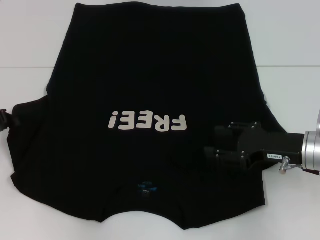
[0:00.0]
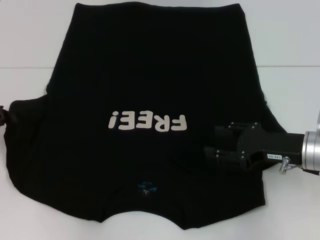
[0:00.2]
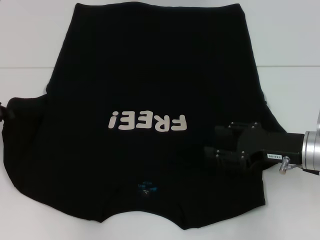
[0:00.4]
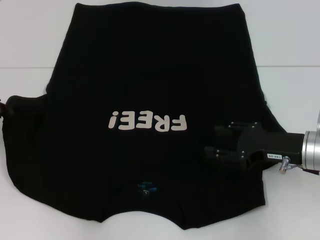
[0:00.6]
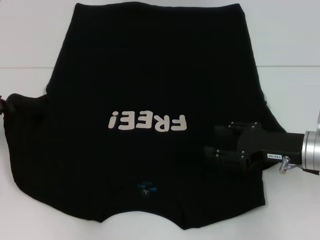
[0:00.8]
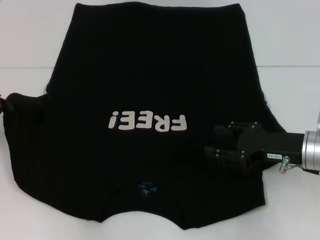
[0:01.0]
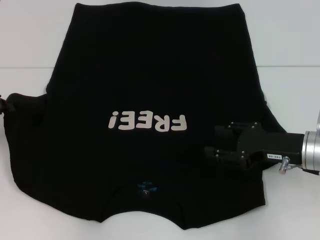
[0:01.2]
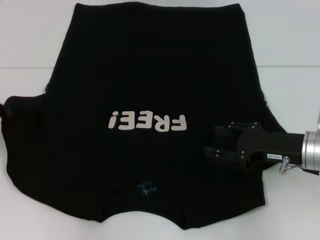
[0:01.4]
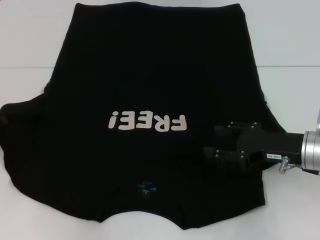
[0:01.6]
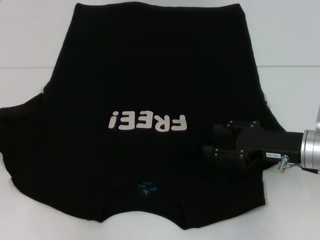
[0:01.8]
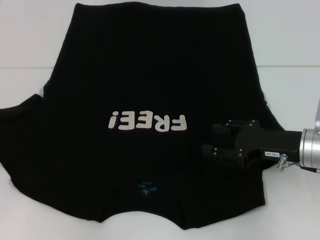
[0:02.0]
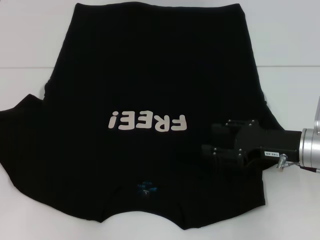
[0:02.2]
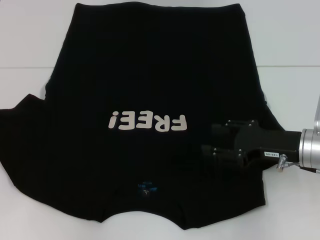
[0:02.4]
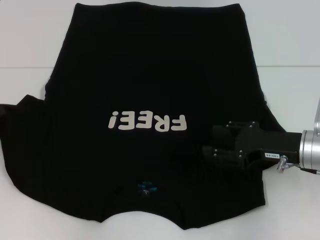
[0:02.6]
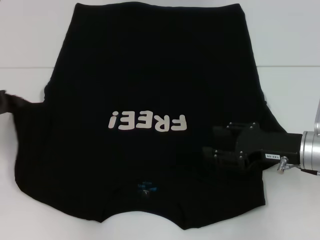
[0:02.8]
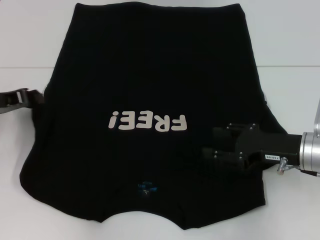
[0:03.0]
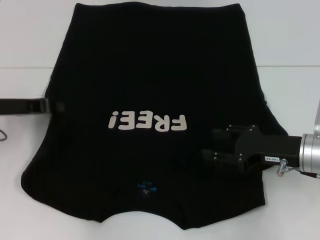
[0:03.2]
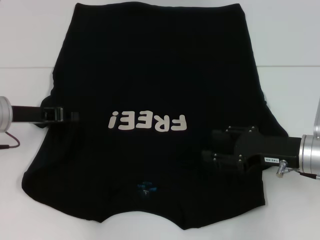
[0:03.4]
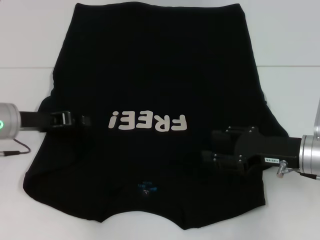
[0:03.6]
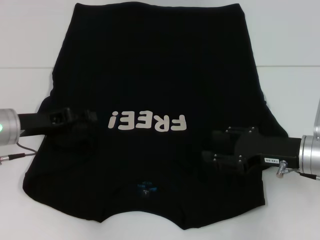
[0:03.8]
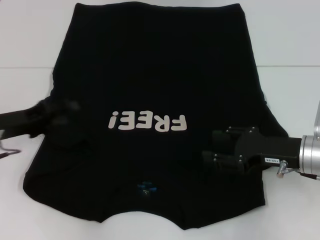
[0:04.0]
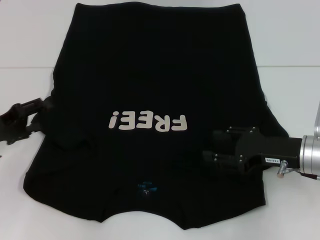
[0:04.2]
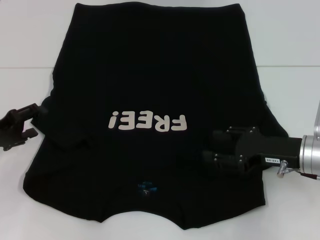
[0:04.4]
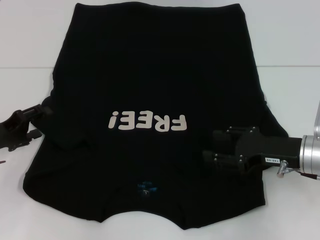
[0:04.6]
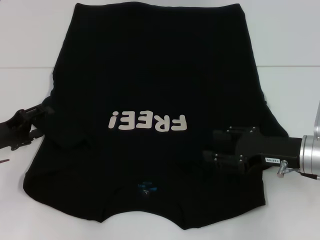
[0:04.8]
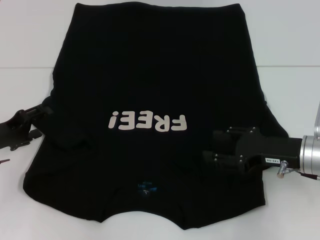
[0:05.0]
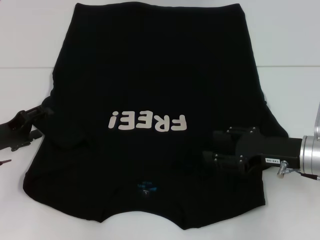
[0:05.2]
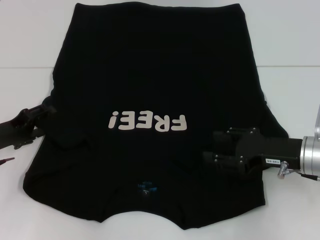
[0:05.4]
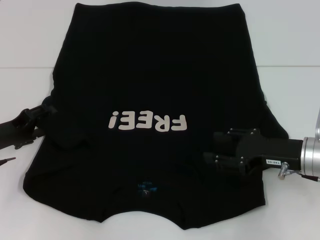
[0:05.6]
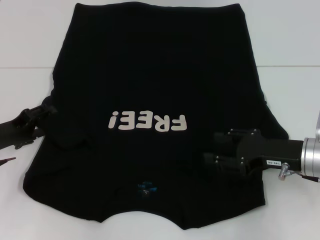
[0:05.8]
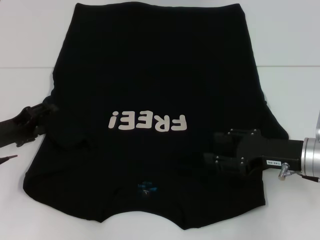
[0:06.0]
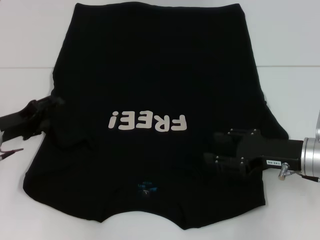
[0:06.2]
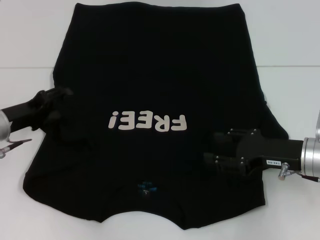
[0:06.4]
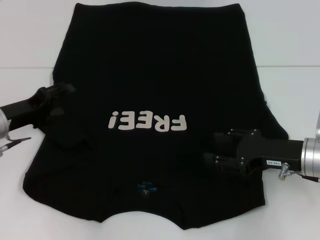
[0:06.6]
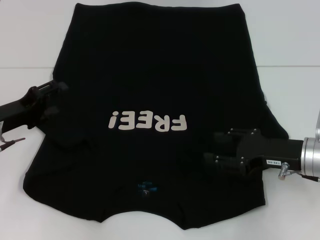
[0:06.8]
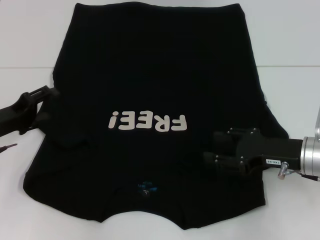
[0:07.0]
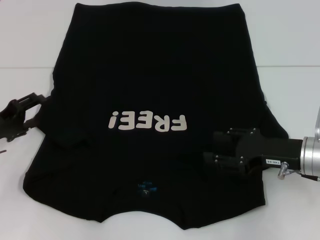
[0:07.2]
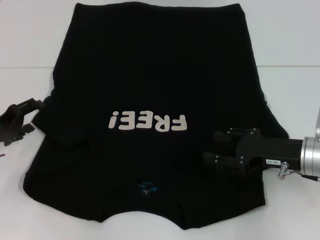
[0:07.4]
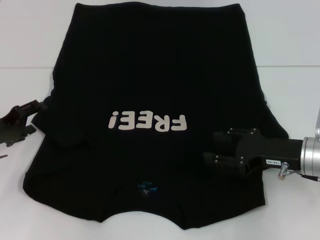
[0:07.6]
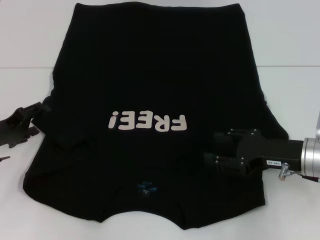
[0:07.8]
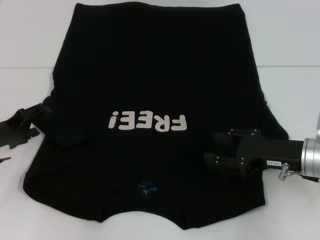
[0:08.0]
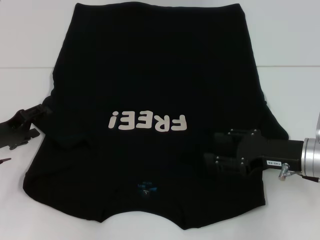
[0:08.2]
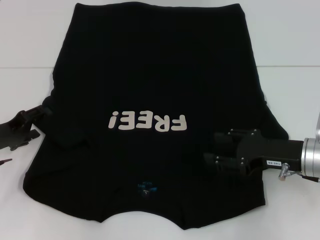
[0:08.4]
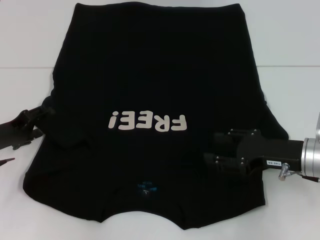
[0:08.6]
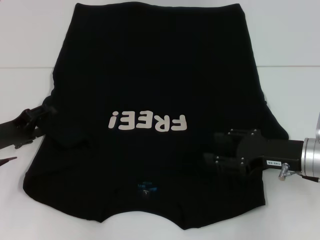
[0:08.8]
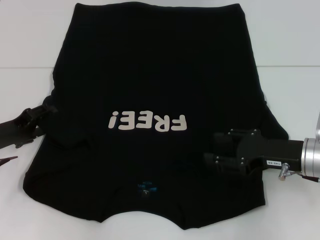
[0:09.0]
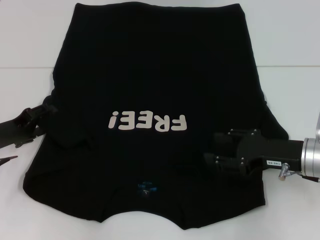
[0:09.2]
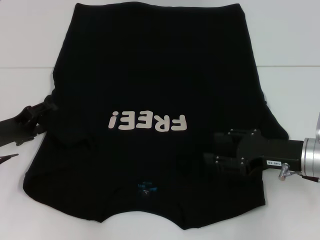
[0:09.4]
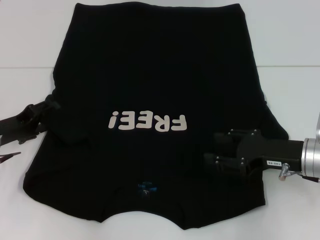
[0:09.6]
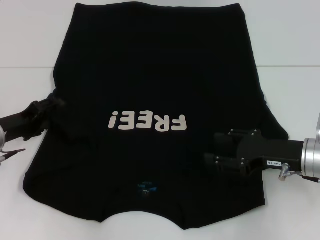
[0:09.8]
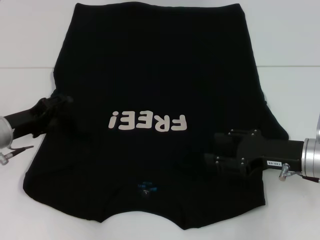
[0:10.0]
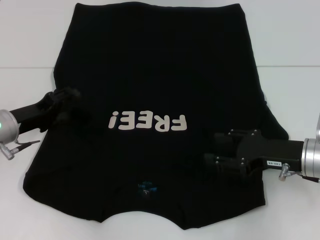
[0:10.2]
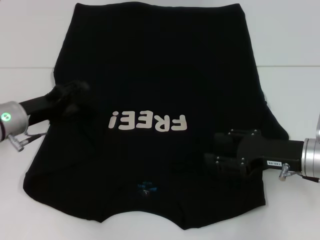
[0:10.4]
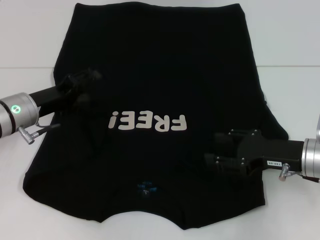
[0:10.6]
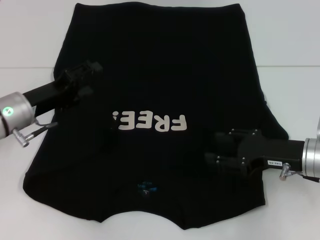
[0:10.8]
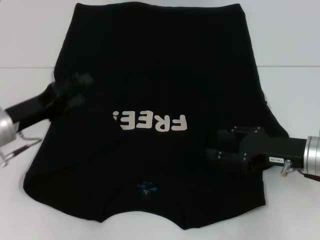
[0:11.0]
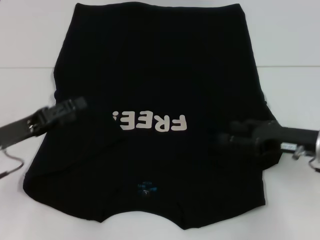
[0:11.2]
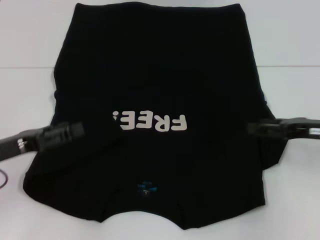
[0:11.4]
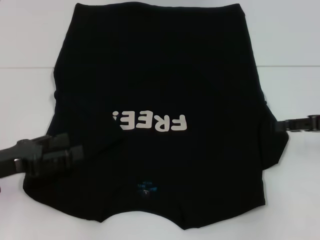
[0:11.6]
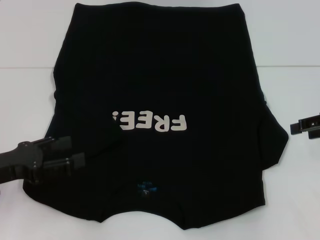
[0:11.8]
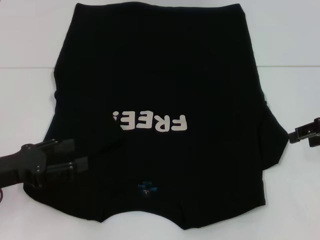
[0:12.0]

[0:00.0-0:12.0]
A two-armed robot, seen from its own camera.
Step, 0:00.0 to 0:11.2: Fold the bottom left sleeve with your left hand.
0:00.0 to 0:01.6: The grippers stay close to where they were, moving slightly.
0:01.6 to 0:03.0: The left gripper shifts roughly 5 cm to the right.
0:03.0 to 0:04.4: The left gripper shifts about 5 cm downward, and opens.
0:04.4 to 0:09.0: The grippers stay close to where they were, moving slightly.
0:09.0 to 0:10.4: The left gripper shifts by some 5 cm.
0:10.4 to 0:12.0: The right gripper shifts approximately 10 cm upward and to the right; the left gripper travels backward by approximately 10 cm.

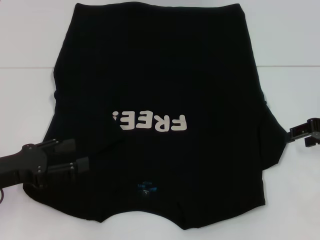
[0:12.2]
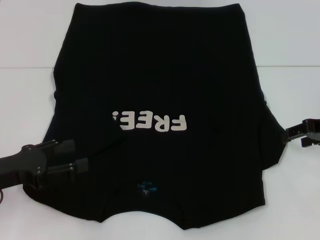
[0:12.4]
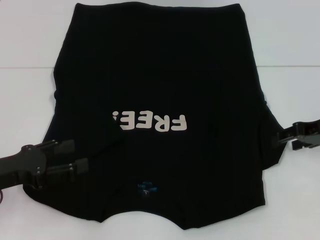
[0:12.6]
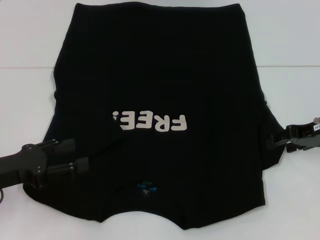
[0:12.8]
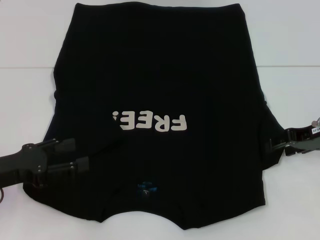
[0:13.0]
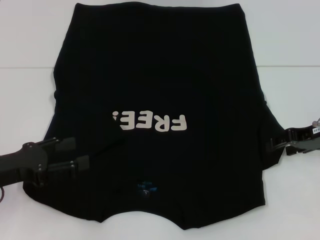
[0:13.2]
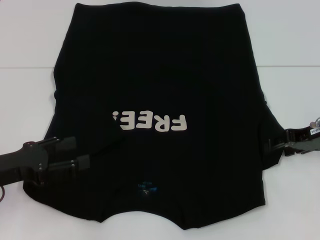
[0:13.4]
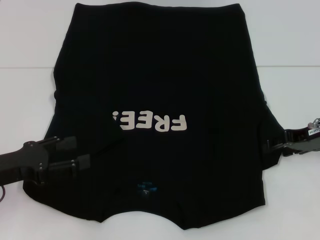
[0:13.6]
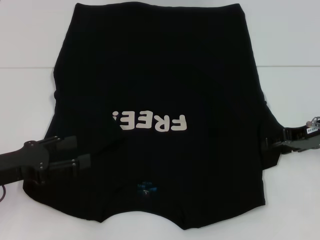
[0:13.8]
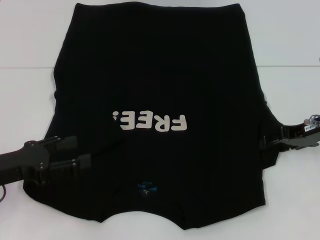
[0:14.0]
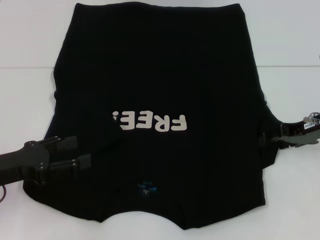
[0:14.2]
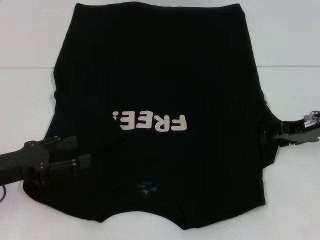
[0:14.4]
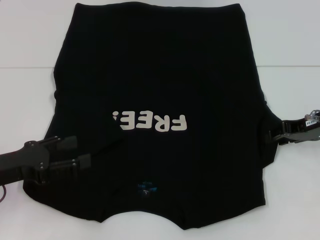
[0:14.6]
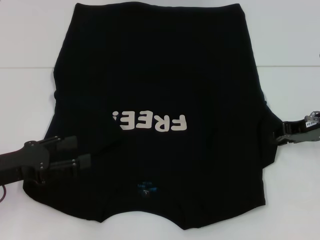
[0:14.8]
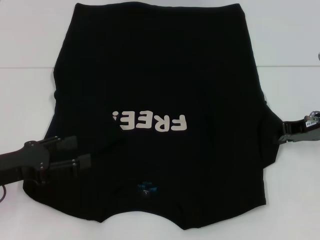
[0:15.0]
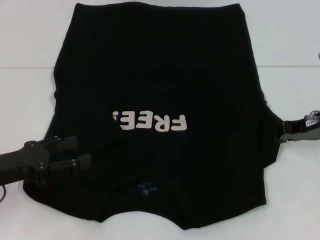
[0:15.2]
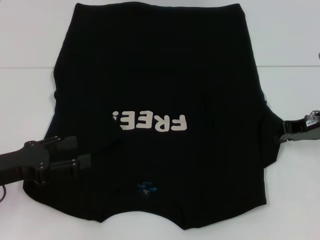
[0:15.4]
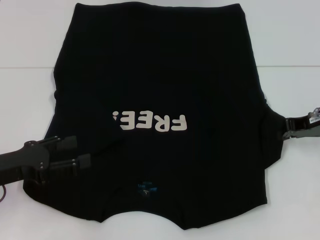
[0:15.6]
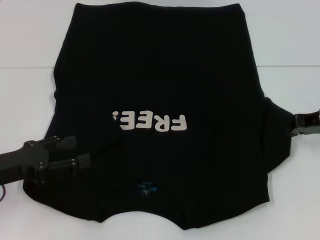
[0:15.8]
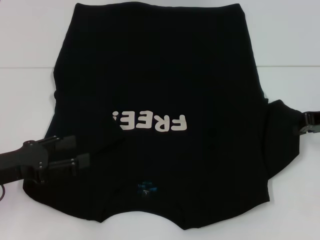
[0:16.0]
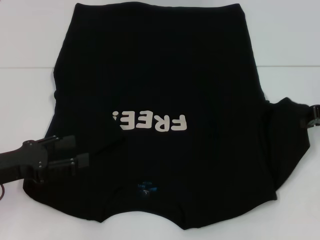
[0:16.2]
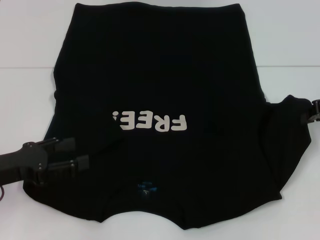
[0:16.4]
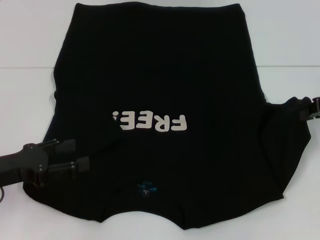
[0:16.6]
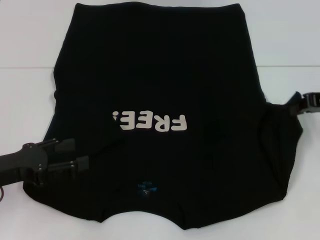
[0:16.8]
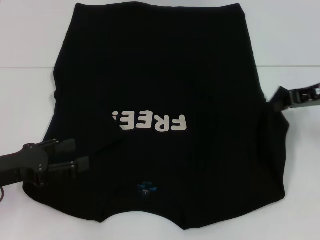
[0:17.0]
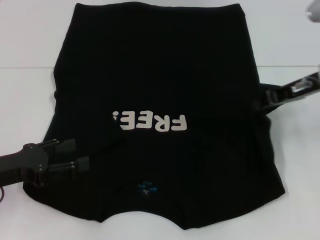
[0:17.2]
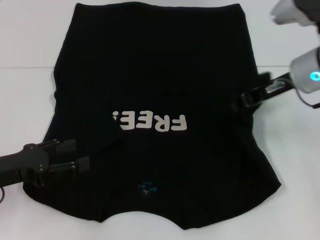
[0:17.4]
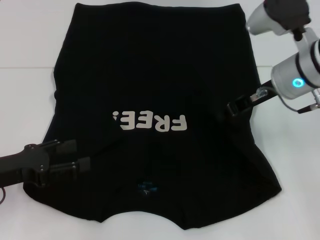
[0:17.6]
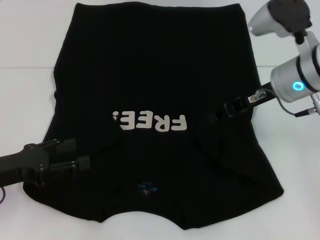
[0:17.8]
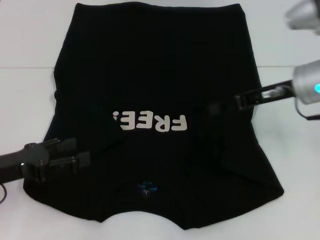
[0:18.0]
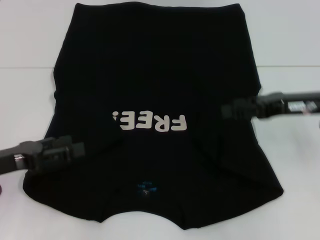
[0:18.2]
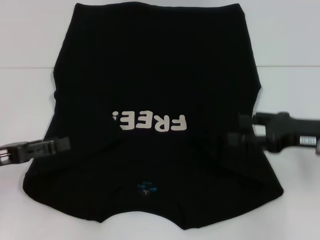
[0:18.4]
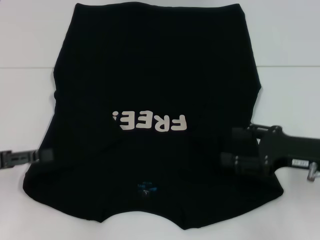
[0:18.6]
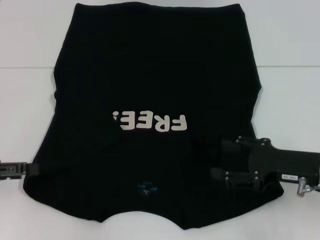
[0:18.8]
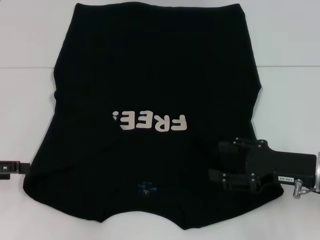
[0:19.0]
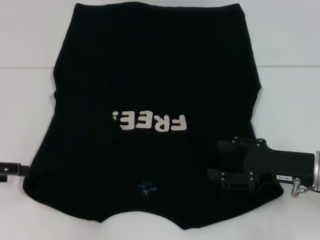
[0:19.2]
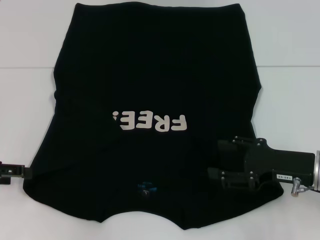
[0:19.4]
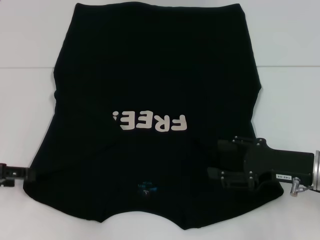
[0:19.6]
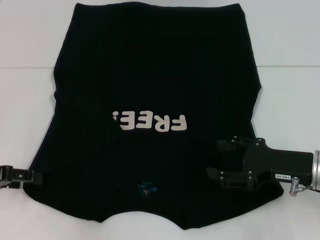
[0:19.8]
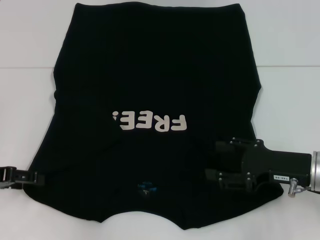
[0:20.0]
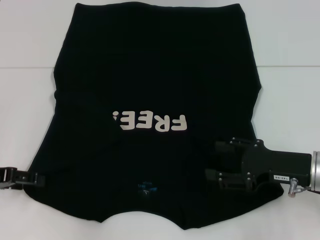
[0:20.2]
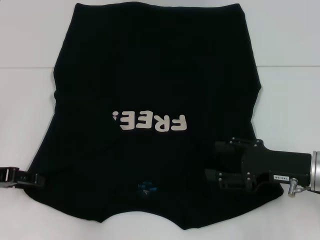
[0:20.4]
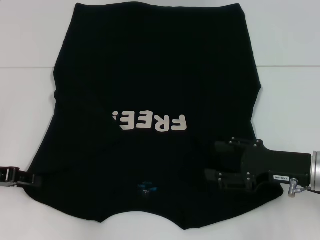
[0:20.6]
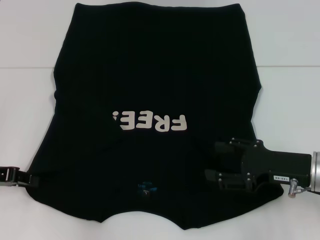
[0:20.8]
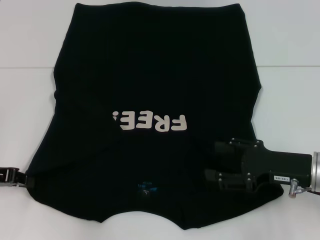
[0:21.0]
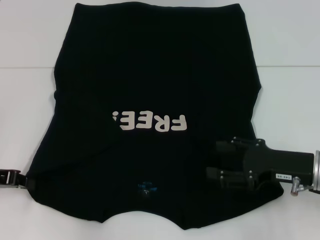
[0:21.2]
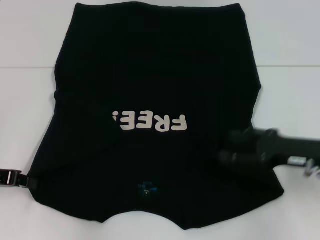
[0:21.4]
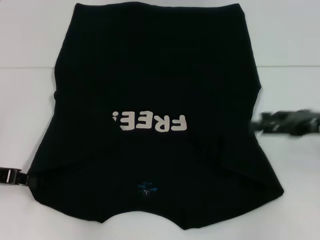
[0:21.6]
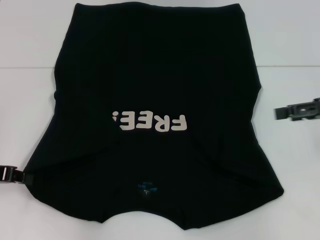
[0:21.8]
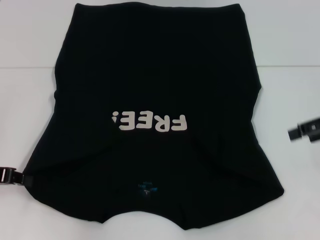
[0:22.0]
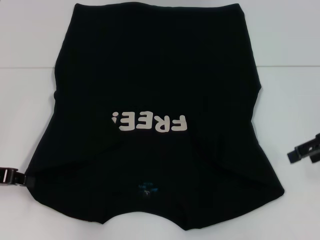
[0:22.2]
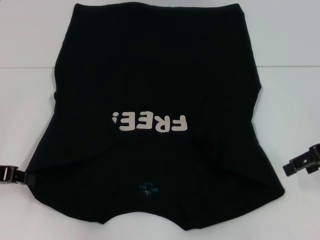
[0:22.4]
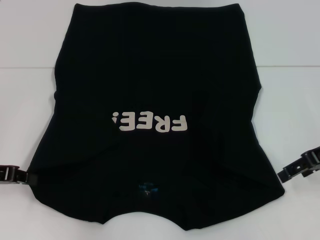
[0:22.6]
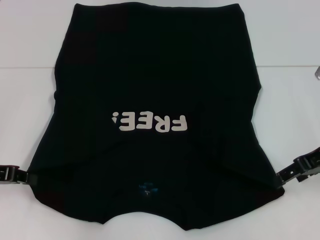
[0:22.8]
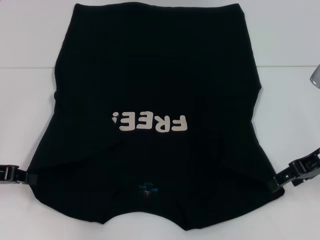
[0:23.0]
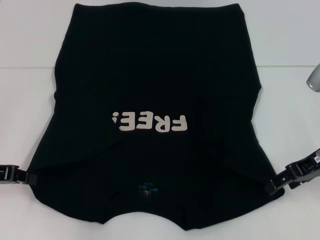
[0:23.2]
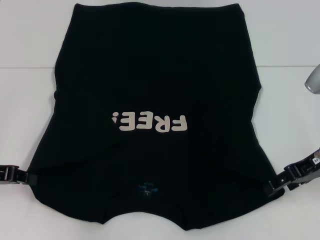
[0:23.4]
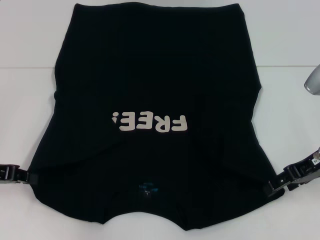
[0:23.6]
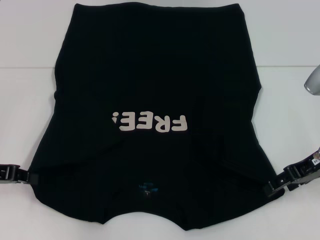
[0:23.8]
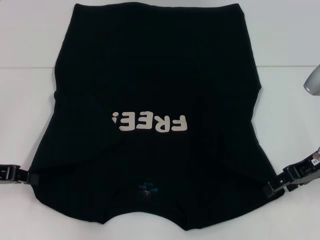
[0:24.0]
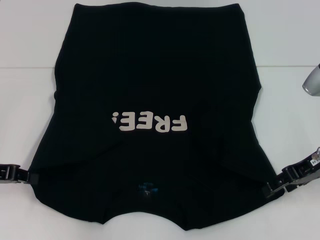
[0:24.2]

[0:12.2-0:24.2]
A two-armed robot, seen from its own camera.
Step, 0:12.2 to 0:18.0: Fold the bottom right sleeve with your right hand.
Step, 0:18.2 to 0:21.2: Grab the bottom left corner with your left hand.
0:12.2 to 0:13.8: The grippers make only small movements.
0:13.8 to 0:15.2: The right gripper closes its fingers.
0:15.2 to 0:16.6: The right gripper shifts roughly 5 cm upward.
0:16.6 to 0:18.2: The right gripper shifts about 5 cm to the left, and opens its fingers.
0:18.2 to 0:19.8: The left gripper moves roughly 5 cm, while the right gripper shifts approximately 10 cm downward and backward, and opens up.
0:19.8 to 0:21.2: The left gripper closes its fingers.
0:21.2 to 0:22.6: The right gripper moves upward and forward, approximately 10 cm.
0:22.6 to 0:24.2: The grippers stay close to where they were, moving slightly.
